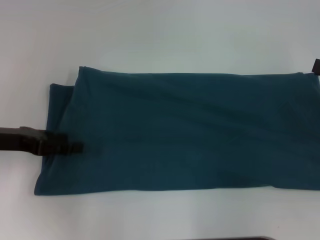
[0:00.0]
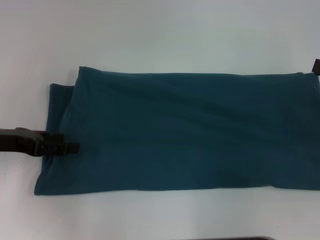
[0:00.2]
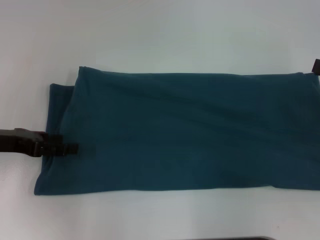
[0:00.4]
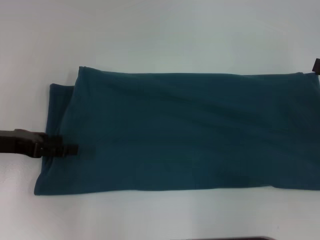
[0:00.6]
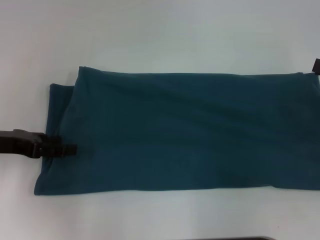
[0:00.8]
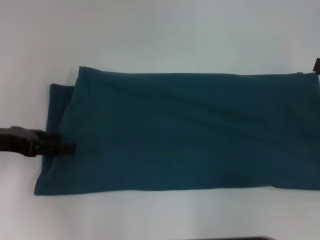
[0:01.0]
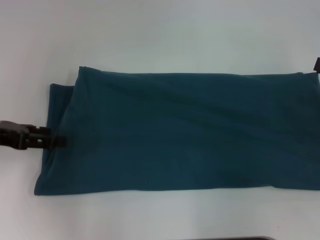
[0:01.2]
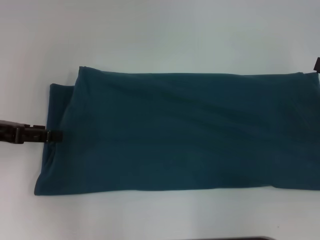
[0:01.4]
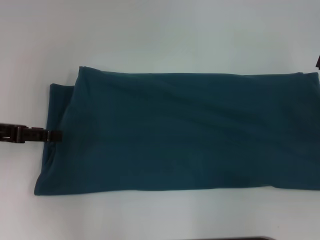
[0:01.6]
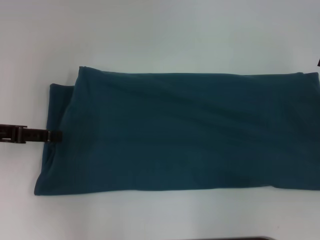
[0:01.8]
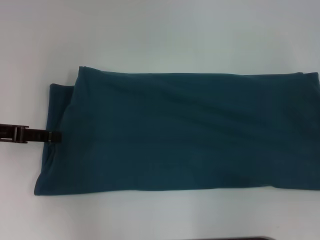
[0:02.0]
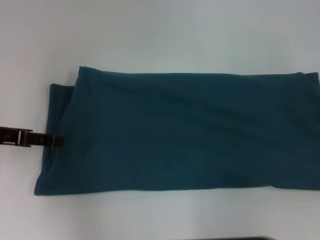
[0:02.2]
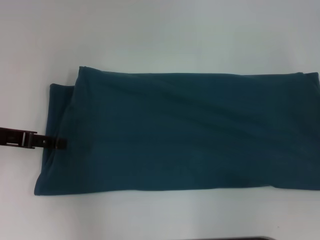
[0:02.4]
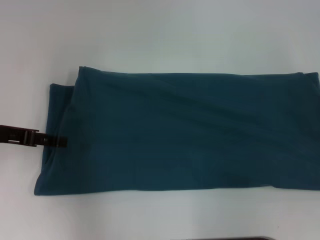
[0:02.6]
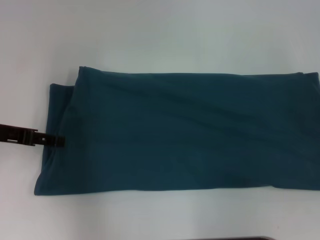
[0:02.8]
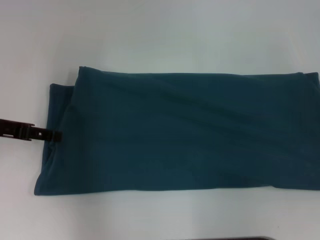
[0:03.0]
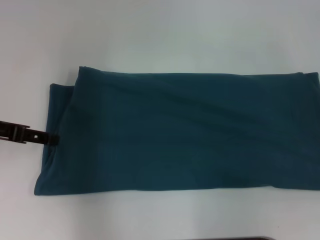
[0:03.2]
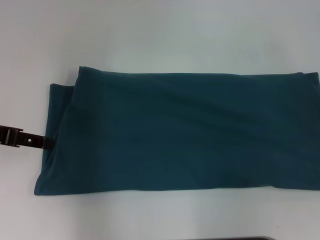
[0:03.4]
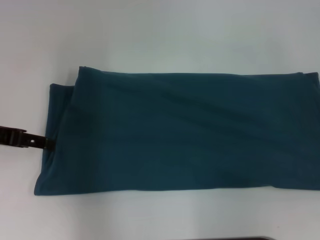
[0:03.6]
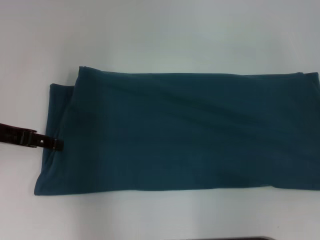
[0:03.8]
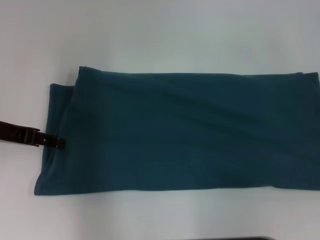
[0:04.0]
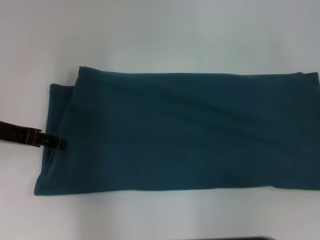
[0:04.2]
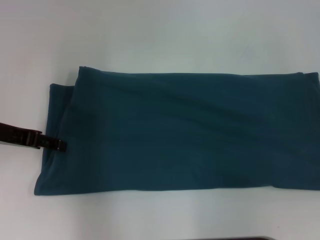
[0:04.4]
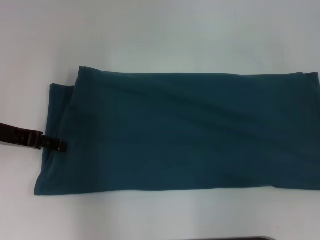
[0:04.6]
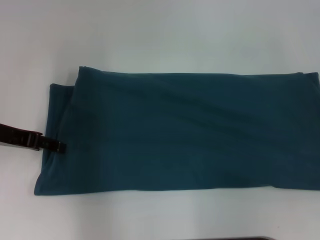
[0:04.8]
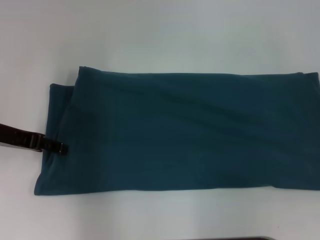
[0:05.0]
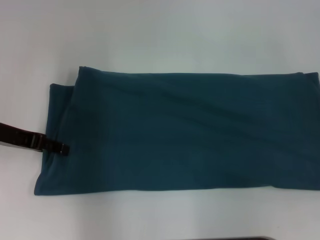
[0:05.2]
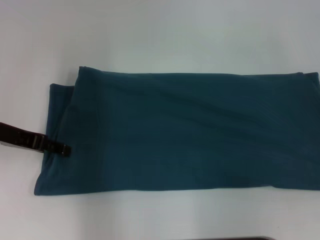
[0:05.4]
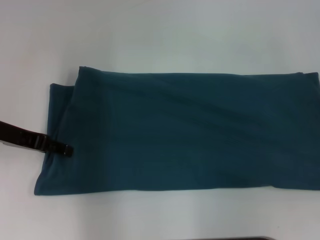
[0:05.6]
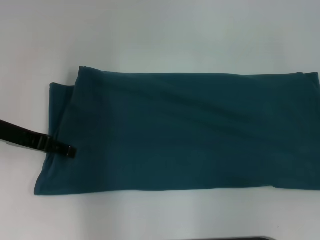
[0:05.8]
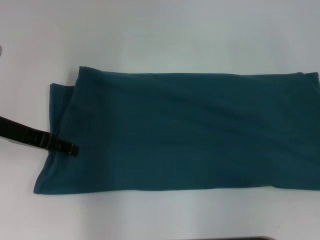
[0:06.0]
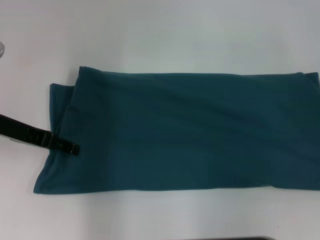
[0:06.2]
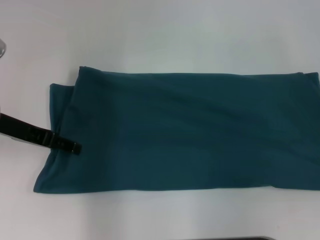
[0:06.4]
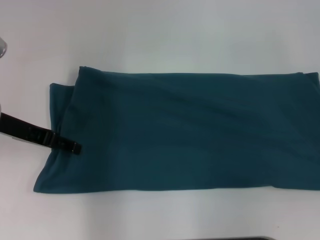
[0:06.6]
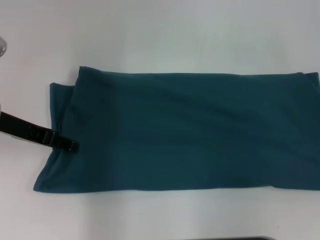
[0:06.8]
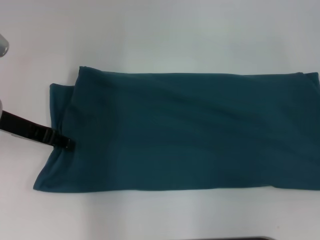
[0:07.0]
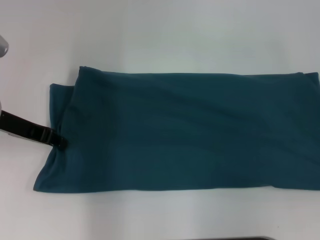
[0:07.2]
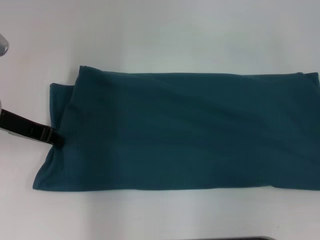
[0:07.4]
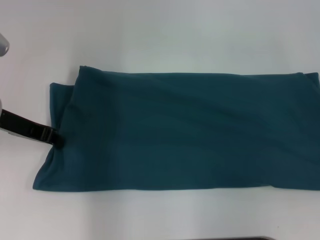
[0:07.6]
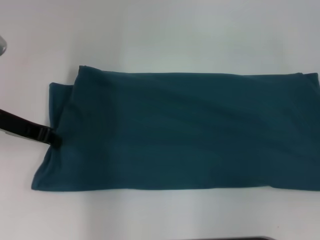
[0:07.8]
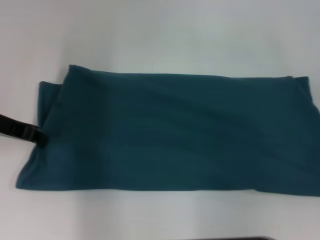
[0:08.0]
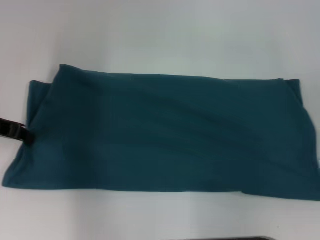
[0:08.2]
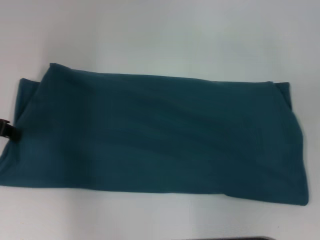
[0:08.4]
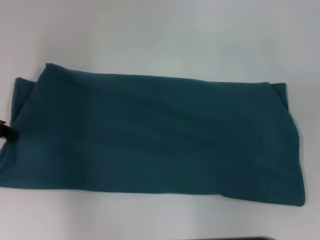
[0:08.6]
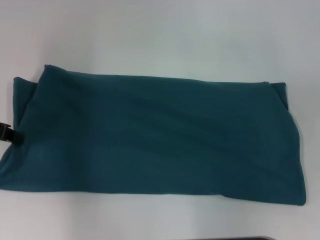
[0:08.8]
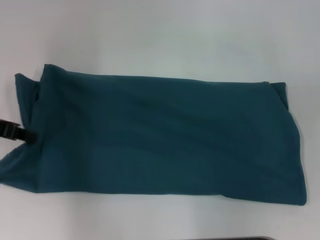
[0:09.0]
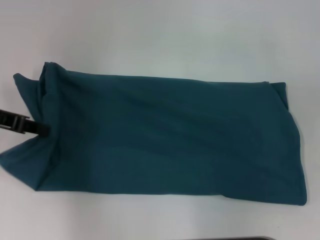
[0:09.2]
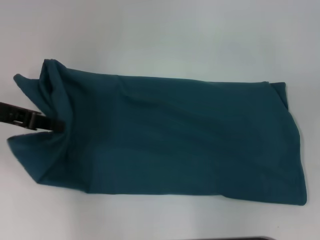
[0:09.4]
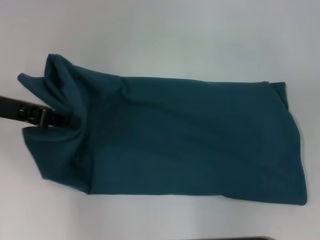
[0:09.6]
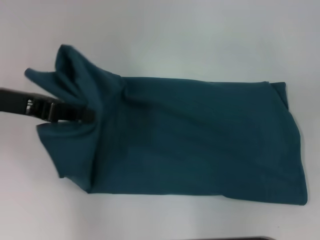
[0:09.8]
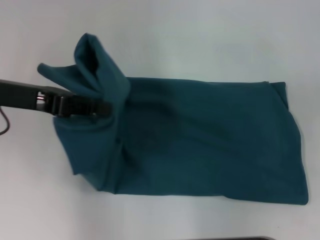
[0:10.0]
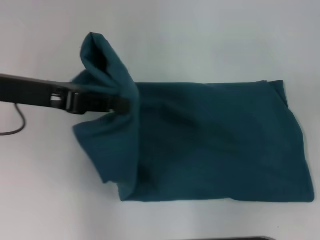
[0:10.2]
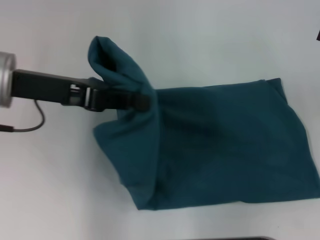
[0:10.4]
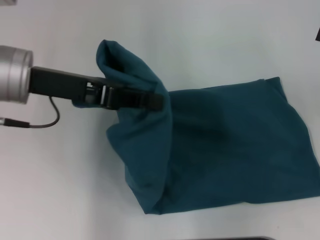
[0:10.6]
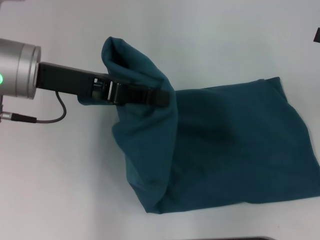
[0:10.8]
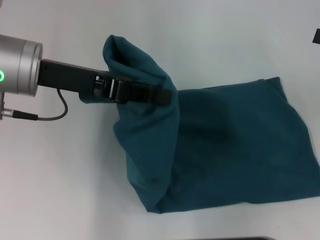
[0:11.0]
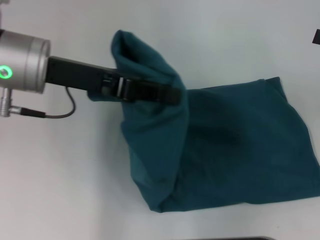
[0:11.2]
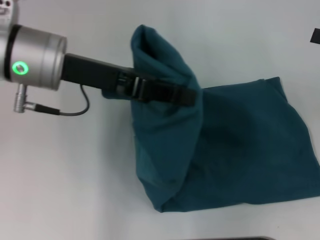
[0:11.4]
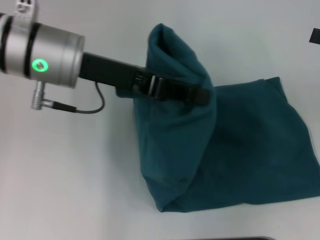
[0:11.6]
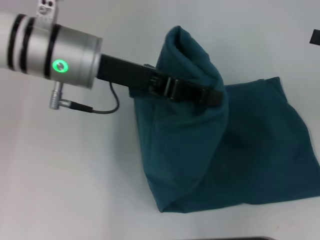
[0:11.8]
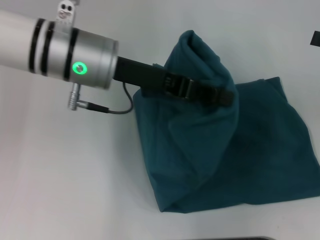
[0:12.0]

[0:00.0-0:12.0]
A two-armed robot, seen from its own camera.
0:00.0 to 0:01.6: There are only small adjustments of the grippers.
0:03.0 to 0:06.0: The grippers make only small movements.
0:06.0 to 0:07.6: The left gripper closes its fingers.
0:07.6 to 0:09.0: The left gripper travels to the left by roughly 5 cm.
0:09.0 to 0:10.4: The left gripper goes about 10 cm to the right.
0:10.4 to 0:12.0: The left gripper shifts about 10 cm to the right.

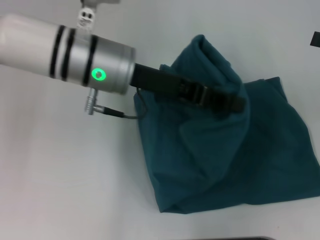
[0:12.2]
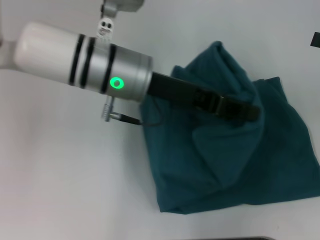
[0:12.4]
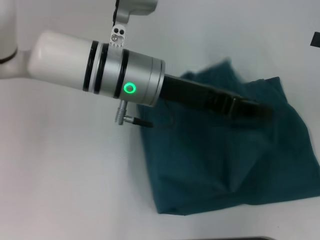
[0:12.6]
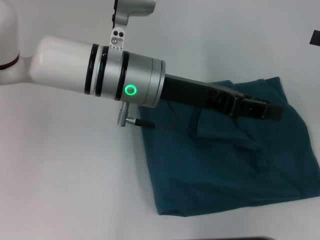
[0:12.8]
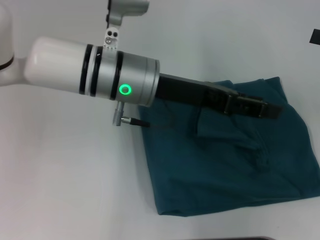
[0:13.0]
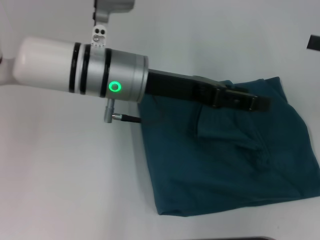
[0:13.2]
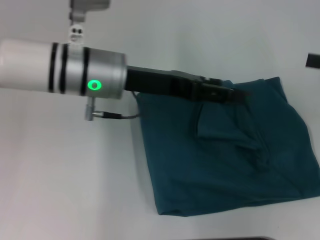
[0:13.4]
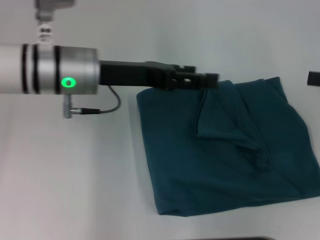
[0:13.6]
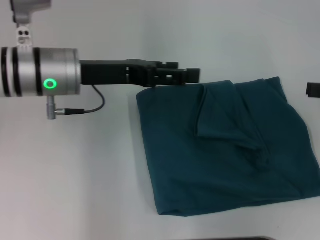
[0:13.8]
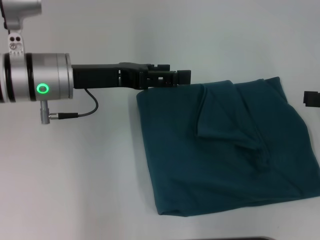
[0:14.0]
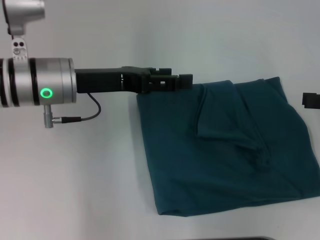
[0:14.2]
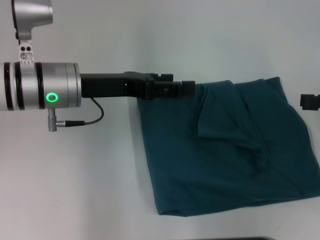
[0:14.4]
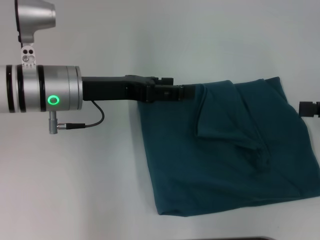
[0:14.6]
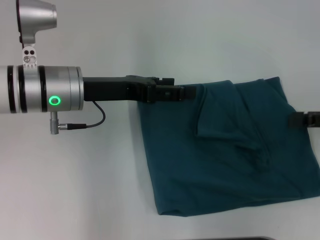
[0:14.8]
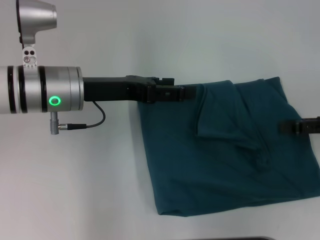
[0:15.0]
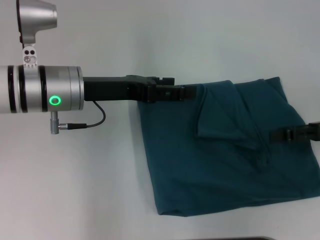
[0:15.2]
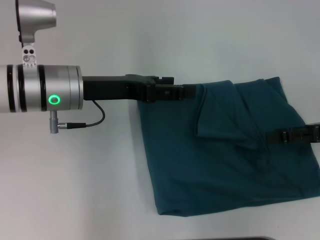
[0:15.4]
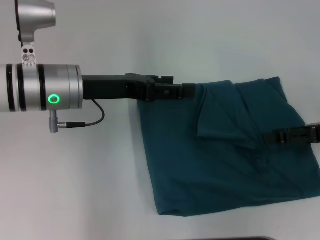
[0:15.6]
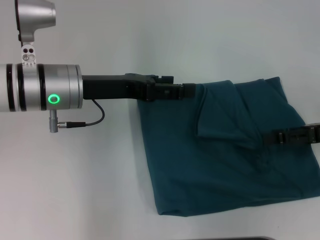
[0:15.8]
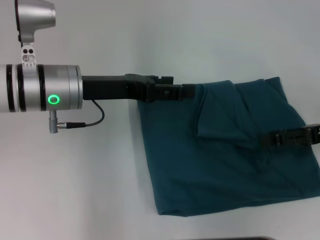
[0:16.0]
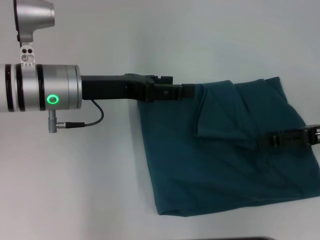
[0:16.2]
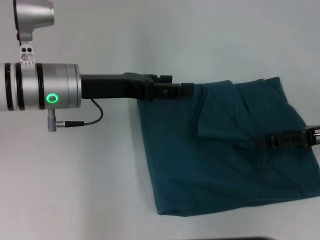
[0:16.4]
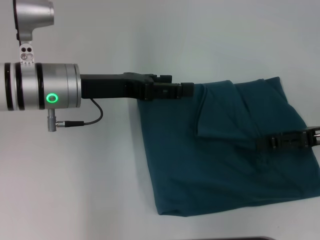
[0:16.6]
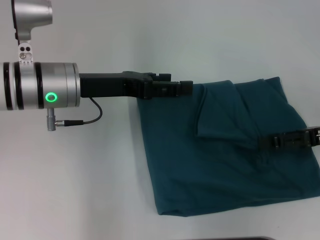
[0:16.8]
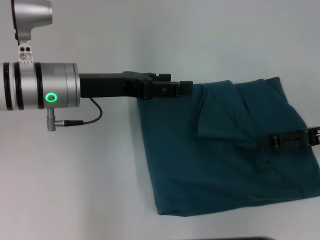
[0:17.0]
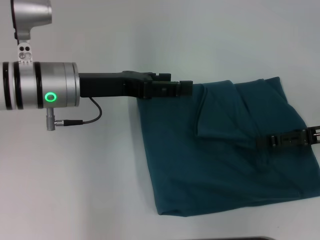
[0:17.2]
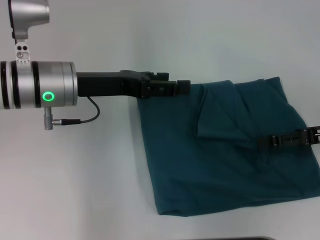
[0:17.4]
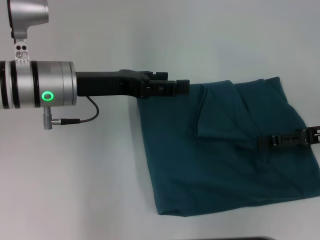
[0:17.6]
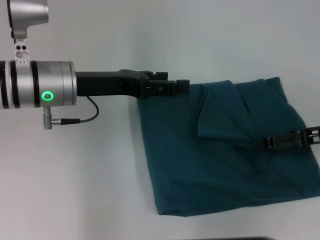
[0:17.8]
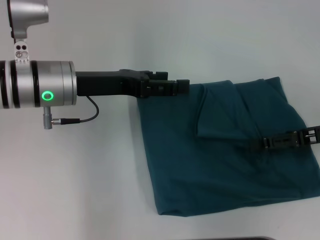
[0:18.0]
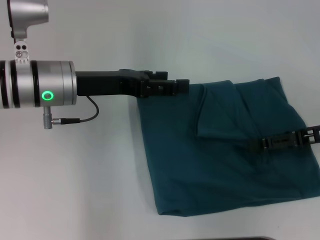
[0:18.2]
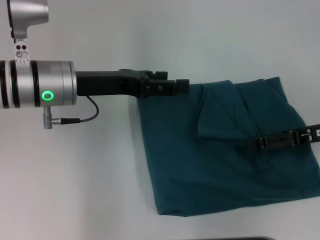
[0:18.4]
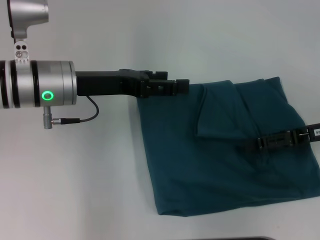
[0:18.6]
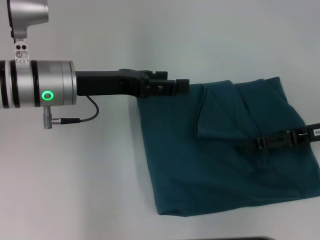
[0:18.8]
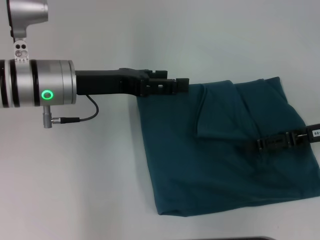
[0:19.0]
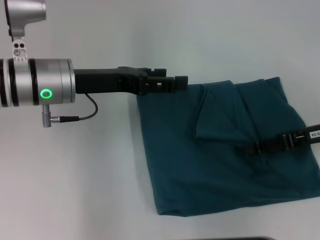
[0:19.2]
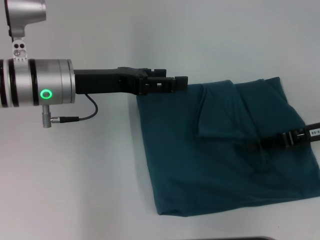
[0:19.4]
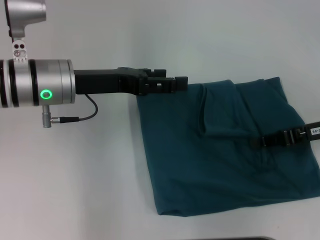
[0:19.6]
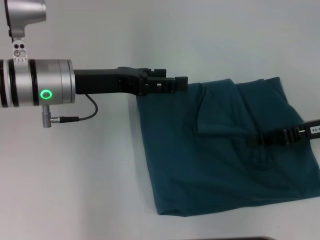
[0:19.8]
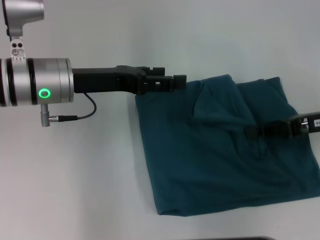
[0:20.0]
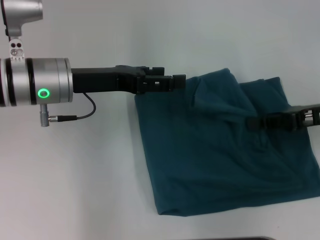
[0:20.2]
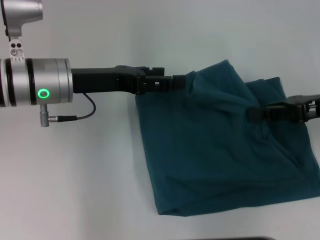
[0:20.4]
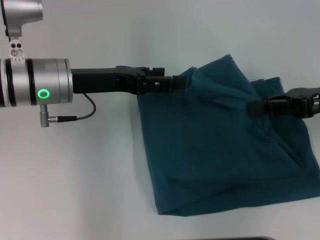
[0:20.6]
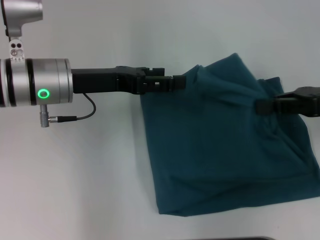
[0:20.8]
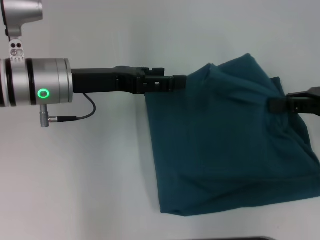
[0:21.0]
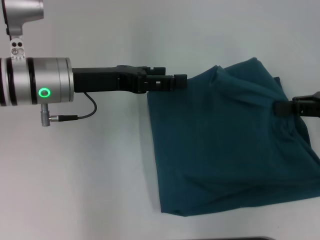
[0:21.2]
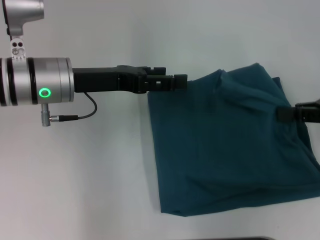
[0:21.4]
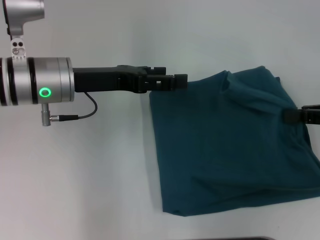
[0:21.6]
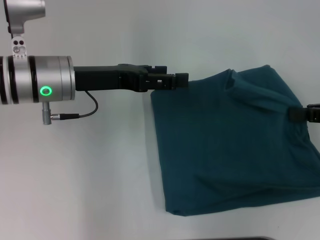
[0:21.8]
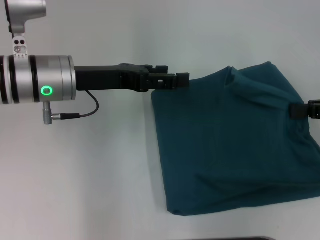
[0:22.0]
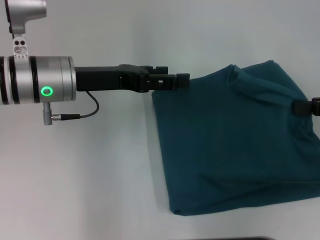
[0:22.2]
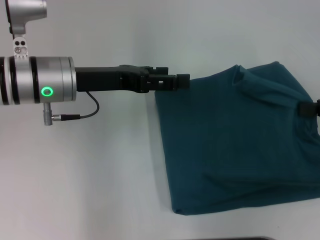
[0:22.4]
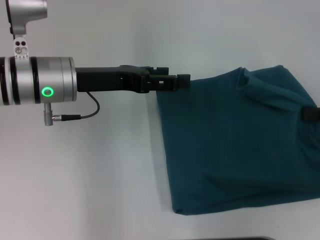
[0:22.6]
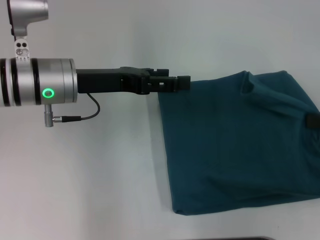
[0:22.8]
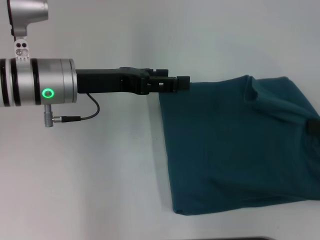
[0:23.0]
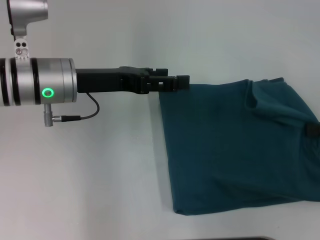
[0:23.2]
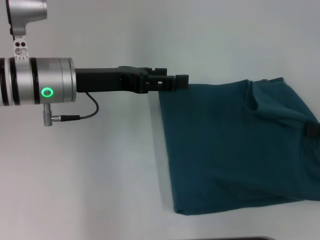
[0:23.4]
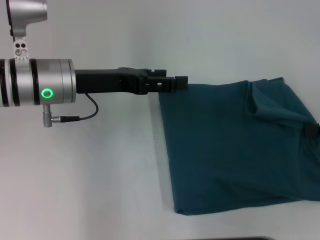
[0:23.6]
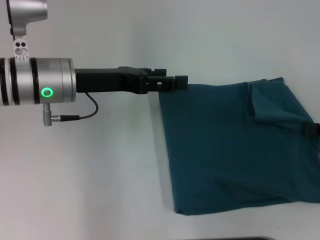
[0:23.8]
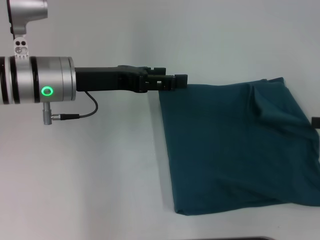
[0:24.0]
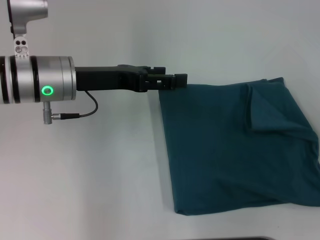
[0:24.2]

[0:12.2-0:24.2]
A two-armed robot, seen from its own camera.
0:12.2 to 0:13.8: The left gripper goes about 5 cm to the left, and opens.
0:13.8 to 0:15.2: The right gripper moves approximately 5 cm.
0:15.2 to 0:18.2: The grippers stay close to where they were, moving slightly.
0:18.2 to 0:19.8: The right gripper closes its fingers.
0:19.8 to 0:21.2: The right gripper heads upward, covering about 5 cm.
0:21.2 to 0:22.6: The grippers stay close to where they were, moving slightly.
0:22.6 to 0:24.2: The grippers make only small movements.
